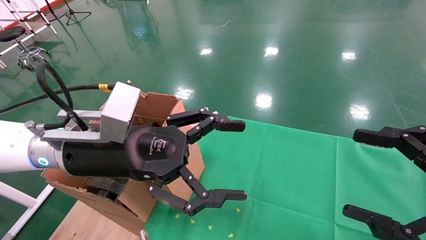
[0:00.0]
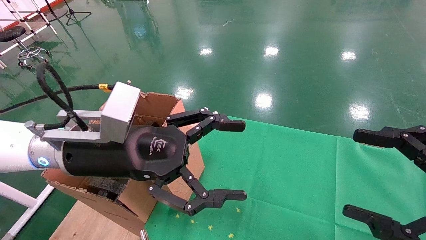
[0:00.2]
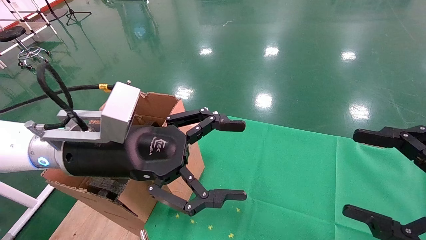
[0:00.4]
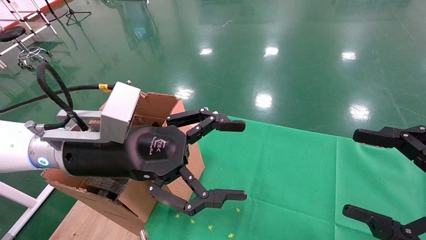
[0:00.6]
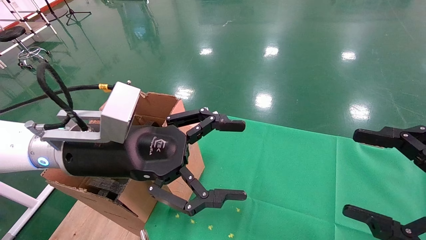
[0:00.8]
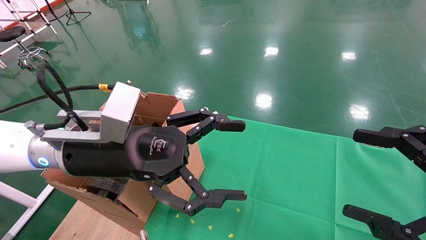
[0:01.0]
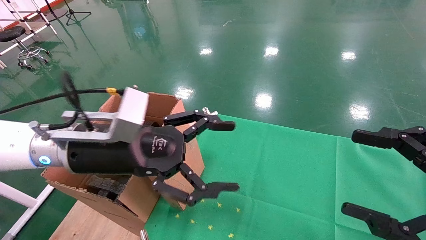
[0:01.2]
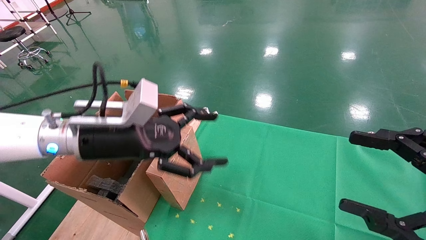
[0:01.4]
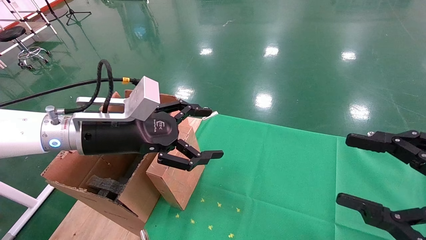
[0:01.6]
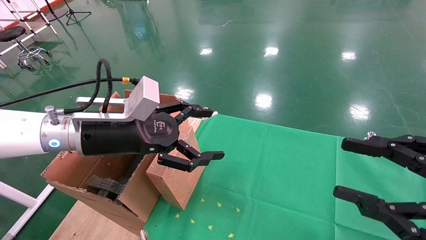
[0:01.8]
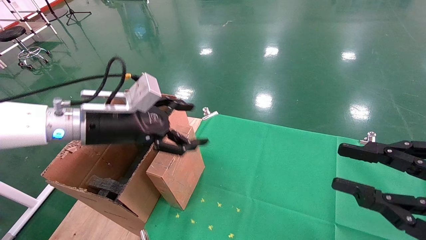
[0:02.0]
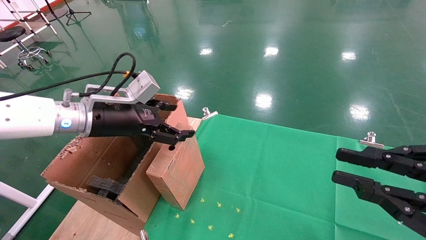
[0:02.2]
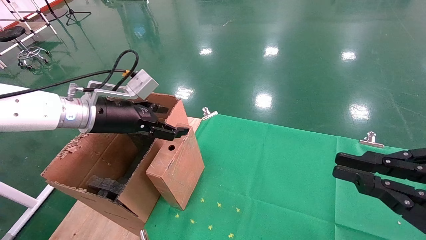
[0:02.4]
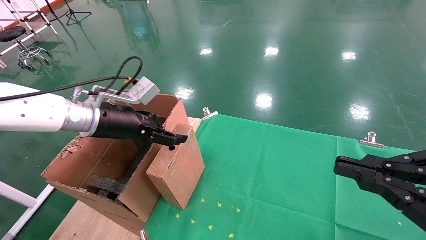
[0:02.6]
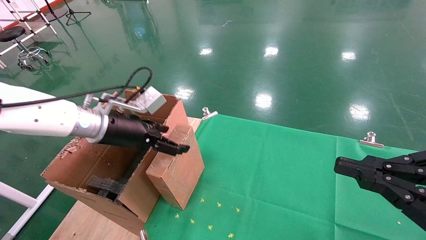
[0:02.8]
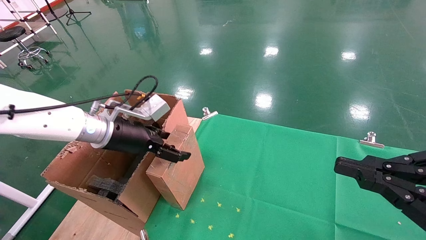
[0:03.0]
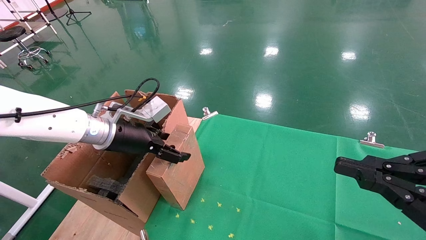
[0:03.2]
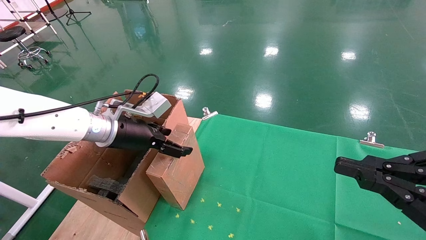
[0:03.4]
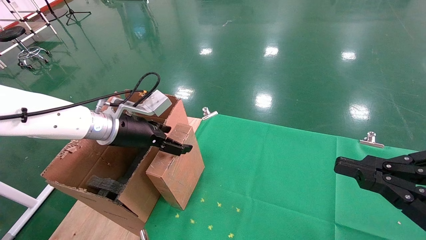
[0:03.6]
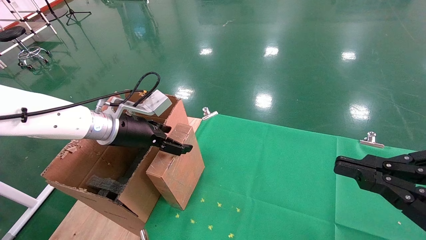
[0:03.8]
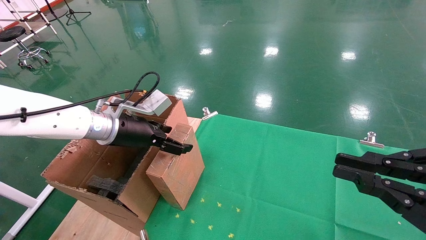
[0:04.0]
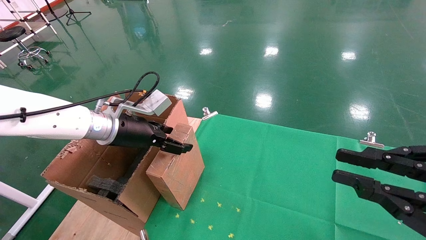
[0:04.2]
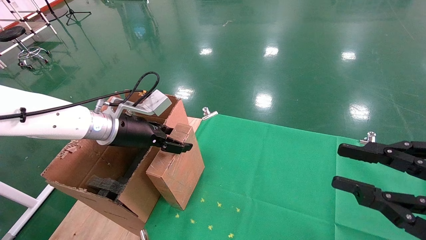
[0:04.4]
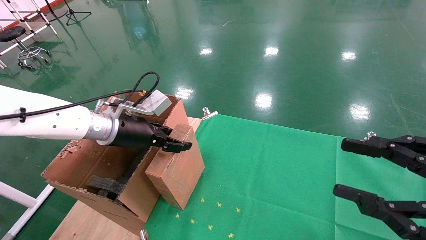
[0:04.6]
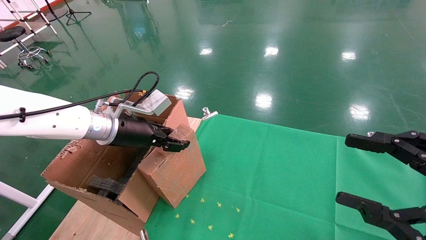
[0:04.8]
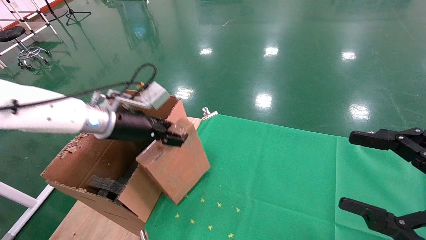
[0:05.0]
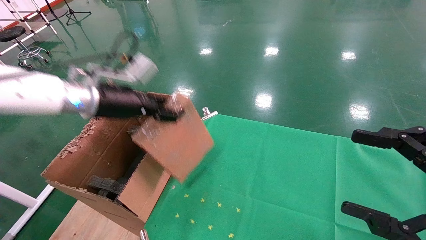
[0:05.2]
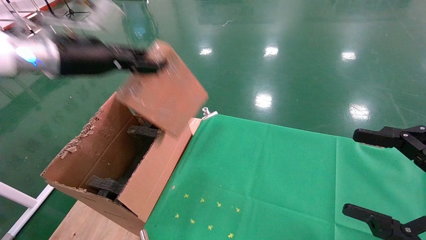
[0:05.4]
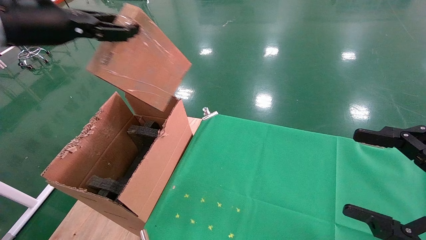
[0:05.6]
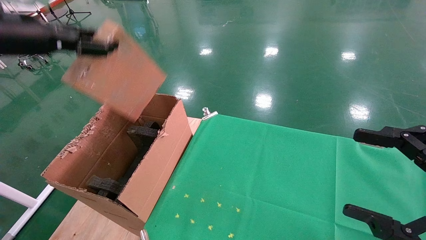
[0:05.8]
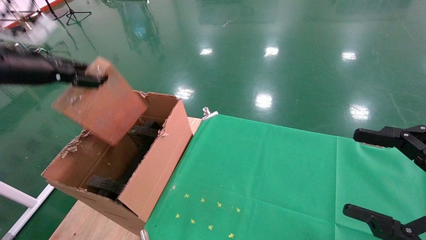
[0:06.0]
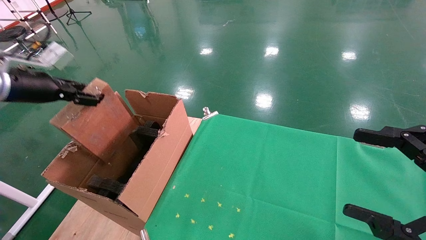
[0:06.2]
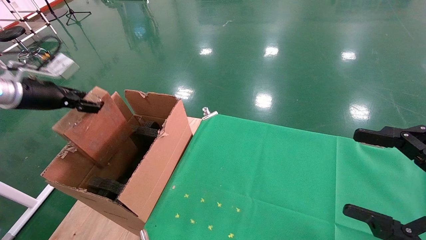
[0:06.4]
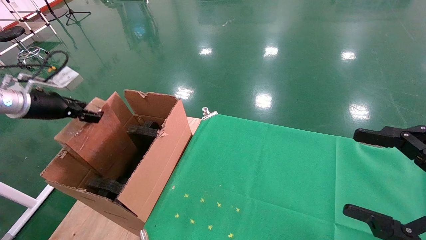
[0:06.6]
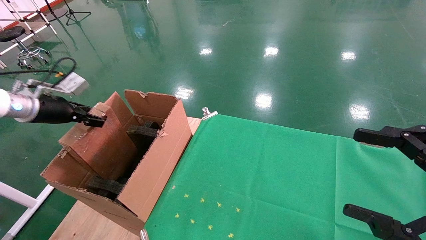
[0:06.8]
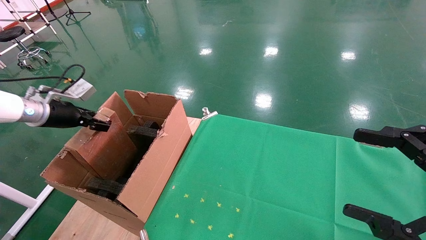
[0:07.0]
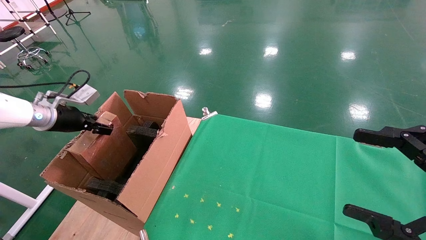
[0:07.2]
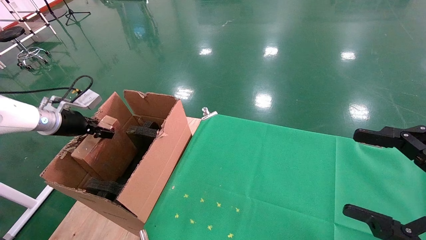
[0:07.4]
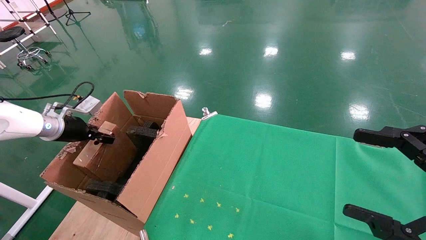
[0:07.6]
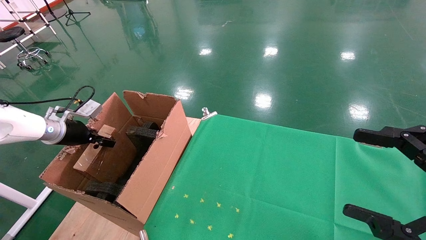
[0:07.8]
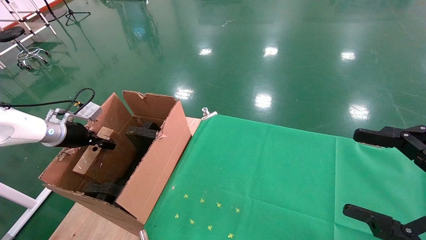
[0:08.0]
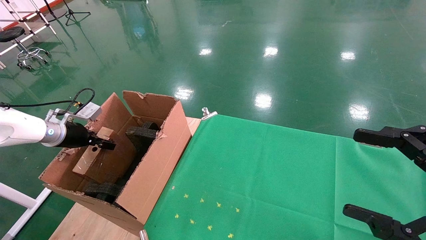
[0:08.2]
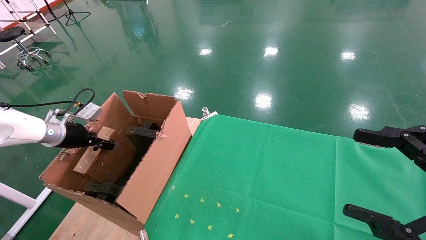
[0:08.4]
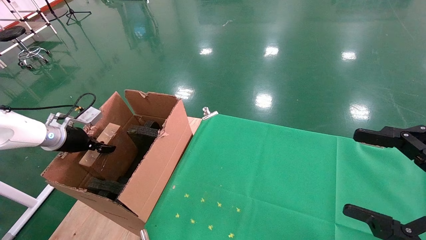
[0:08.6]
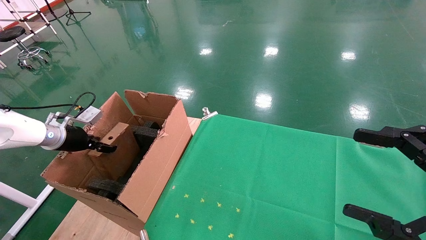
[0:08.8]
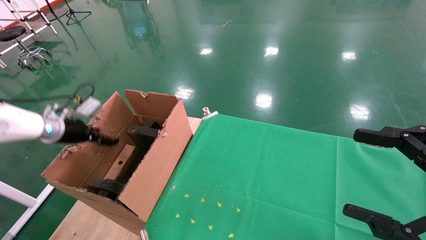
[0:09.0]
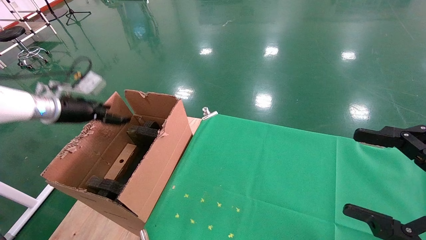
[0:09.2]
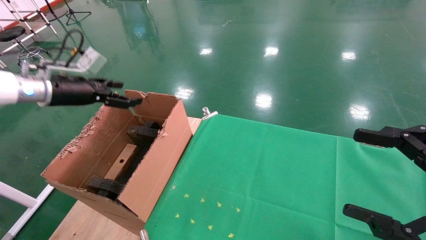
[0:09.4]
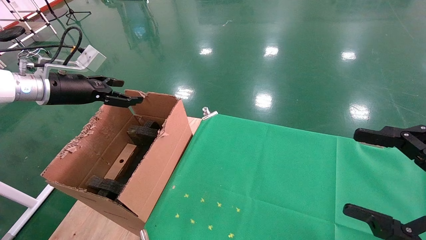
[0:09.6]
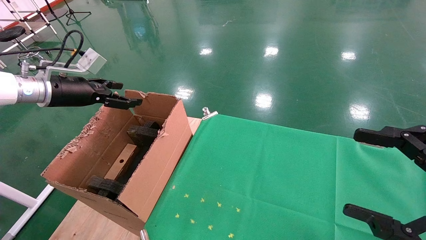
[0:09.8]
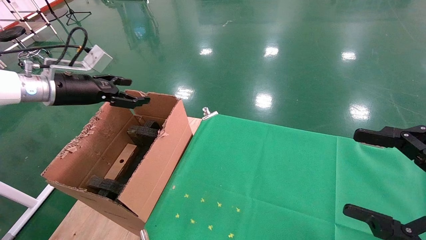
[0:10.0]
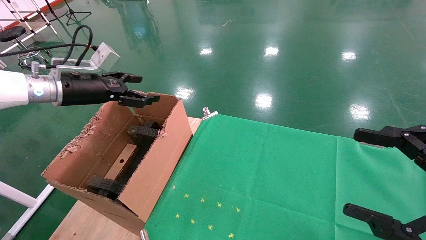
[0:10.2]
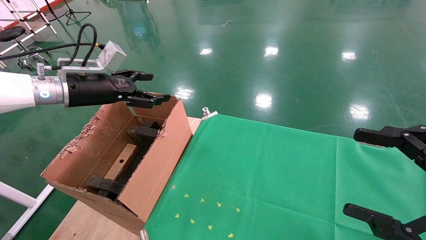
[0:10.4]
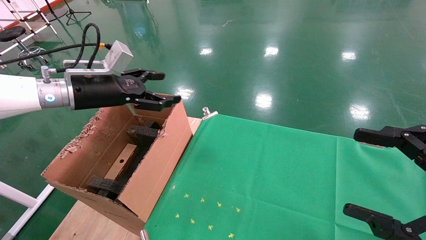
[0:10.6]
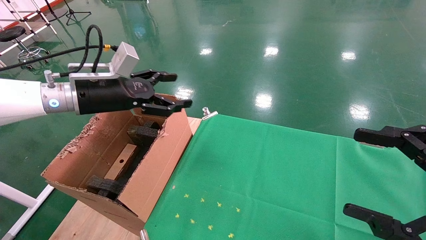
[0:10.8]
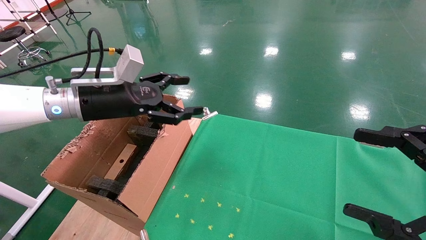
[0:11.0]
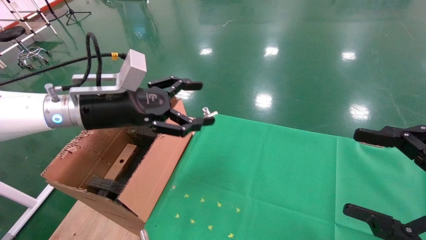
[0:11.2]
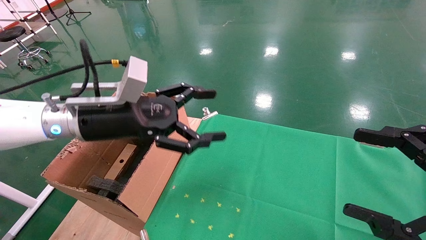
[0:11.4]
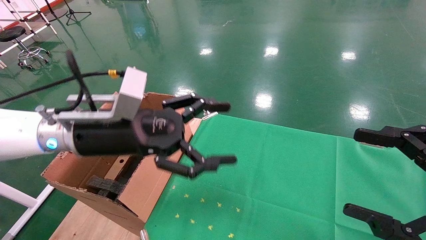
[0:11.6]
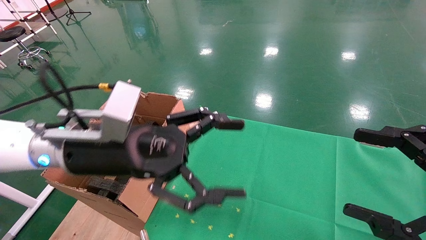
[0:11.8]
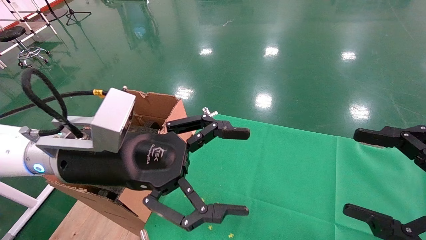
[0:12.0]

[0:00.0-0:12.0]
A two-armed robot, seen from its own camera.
Task of the whole recording: using a robotic arm to pick up a cardboard box and palace it the carton.
Step, 0:01.2 to 0:04.8: Pick up the mouse and the power cord paper box.
Step, 0:05.0 to 0:08.6: Place the mouse and the power cord paper box into the container.
0:00.0 to 0:01.6: The left gripper shifts by about 5 cm.
0:01.6 to 0:03.0: The right gripper closes its fingers, while the left gripper travels forward by roughly 5 cm.
0:03.0 to 0:04.4: Both grippers stay put.
0:04.4 to 0:06.0: The right gripper opens. The left gripper is displaced to the left and upward by about 20 cm, and closes its fingers.
0:06.0 to 0:07.6: The left gripper moves downward and forward, about 20 cm.
0:07.6 to 0:09.0: The left gripper opens its fingers.
0:09.0 to 0:10.4: The left gripper moves to the right and upward, some 15 cm, and opens.
0:10.4 to 0:12.0: The left gripper goes approximately 20 cm to the right and backward.

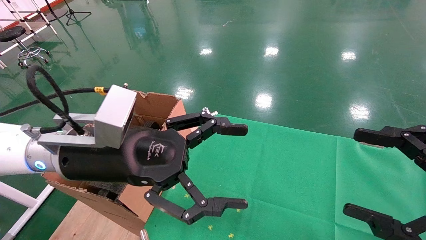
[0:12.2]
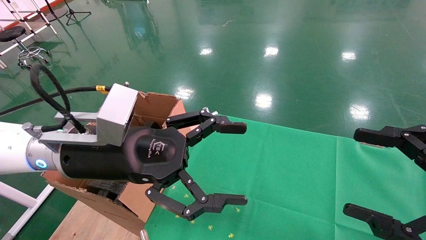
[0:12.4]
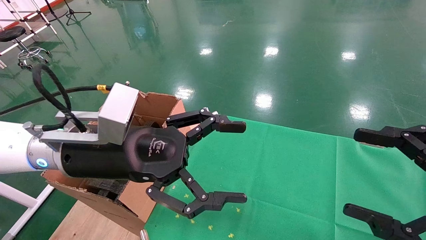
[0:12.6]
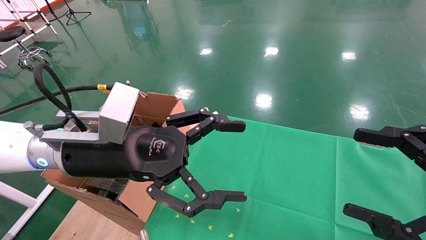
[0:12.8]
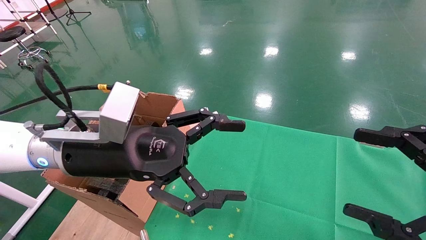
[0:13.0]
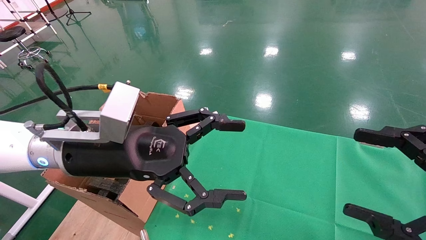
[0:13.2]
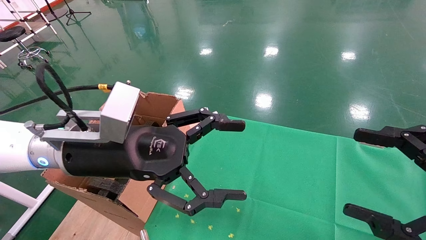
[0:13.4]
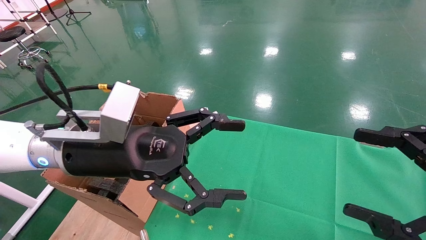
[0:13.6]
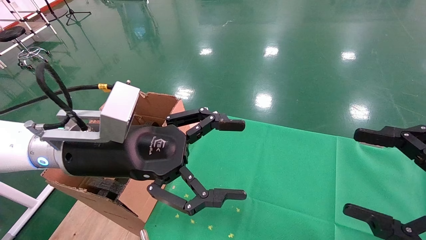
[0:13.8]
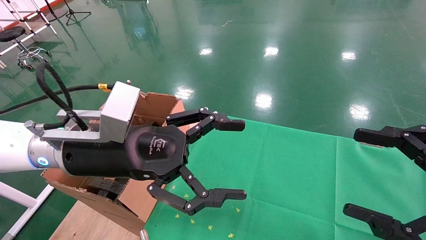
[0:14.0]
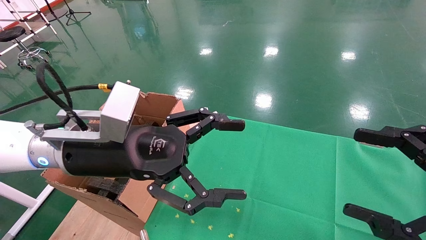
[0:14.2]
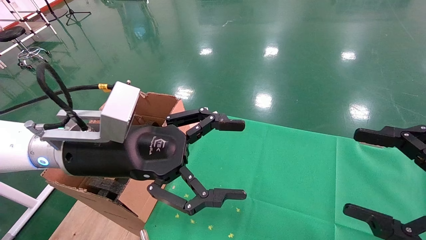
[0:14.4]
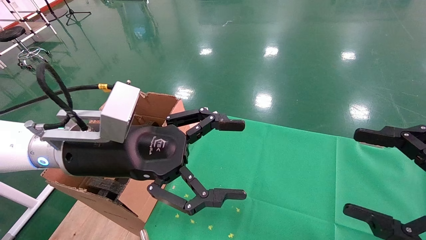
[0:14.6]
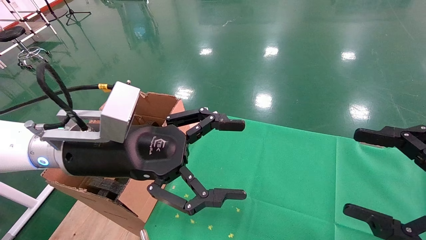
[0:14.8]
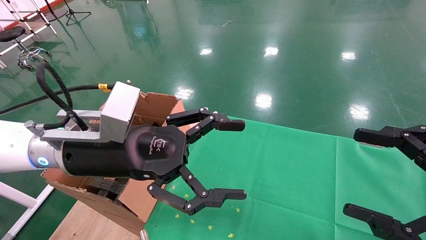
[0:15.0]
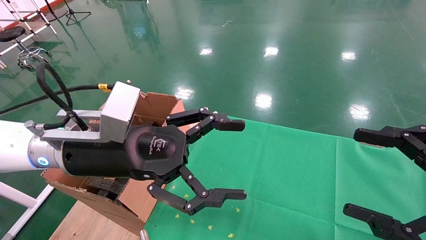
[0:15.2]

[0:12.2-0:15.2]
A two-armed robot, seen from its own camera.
Task of the whole recording: using a robotic arm to pick up a cardboard box and palace it the carton.
0:12.2 to 0:15.2: Neither gripper changes place.
